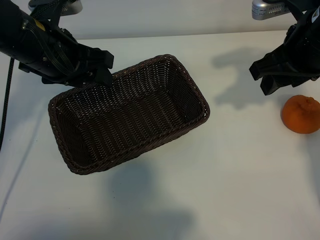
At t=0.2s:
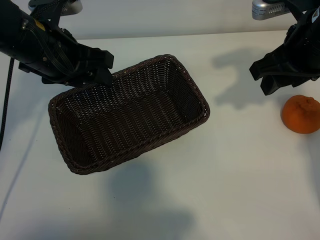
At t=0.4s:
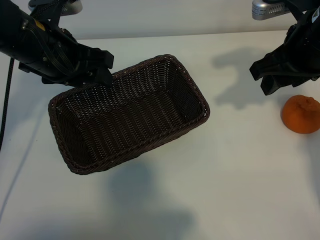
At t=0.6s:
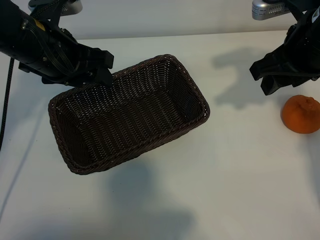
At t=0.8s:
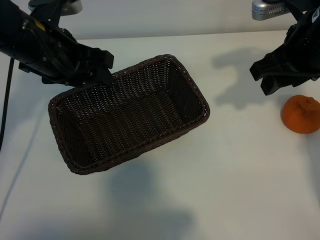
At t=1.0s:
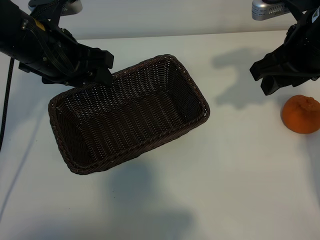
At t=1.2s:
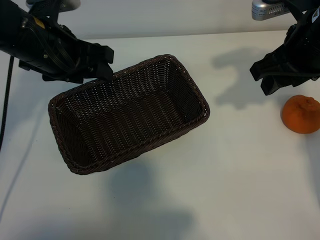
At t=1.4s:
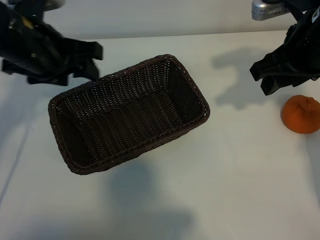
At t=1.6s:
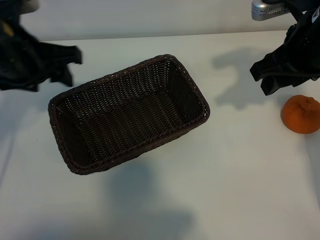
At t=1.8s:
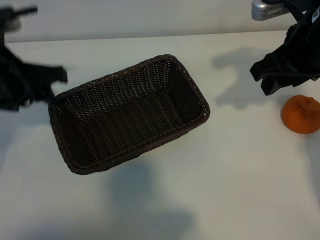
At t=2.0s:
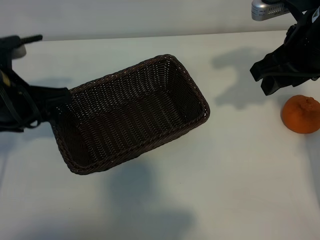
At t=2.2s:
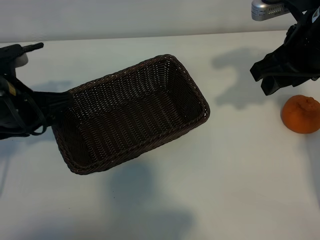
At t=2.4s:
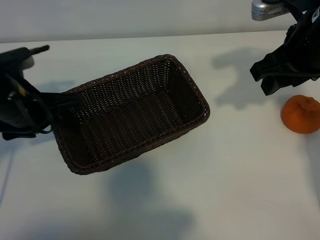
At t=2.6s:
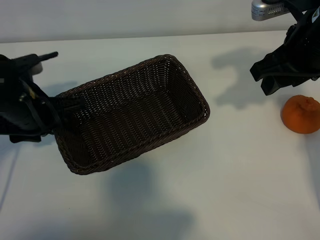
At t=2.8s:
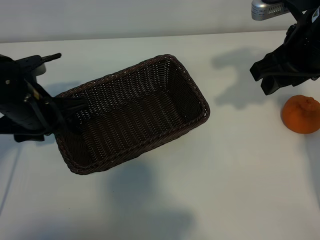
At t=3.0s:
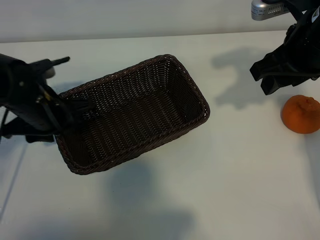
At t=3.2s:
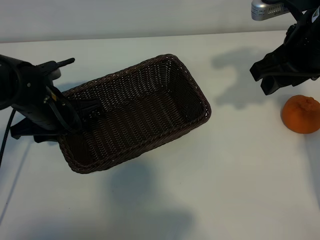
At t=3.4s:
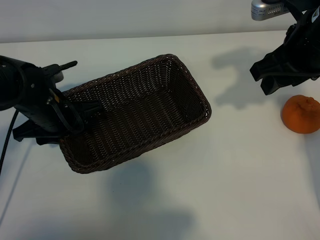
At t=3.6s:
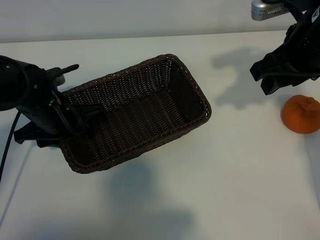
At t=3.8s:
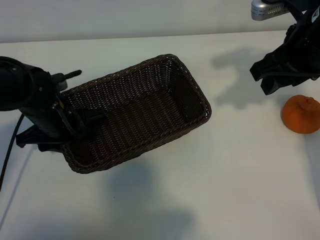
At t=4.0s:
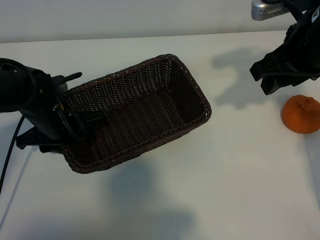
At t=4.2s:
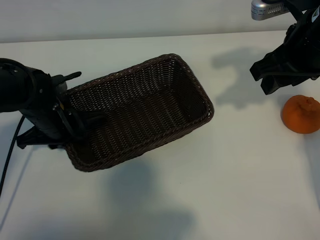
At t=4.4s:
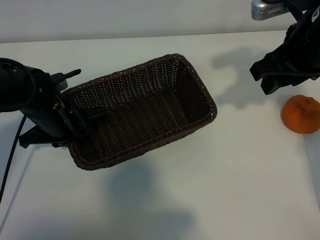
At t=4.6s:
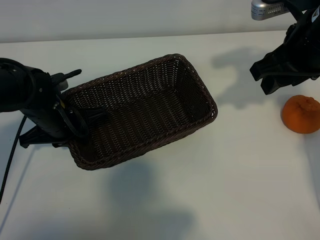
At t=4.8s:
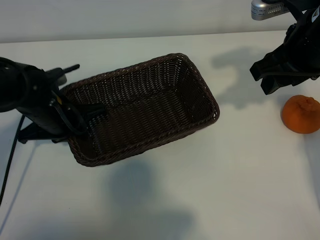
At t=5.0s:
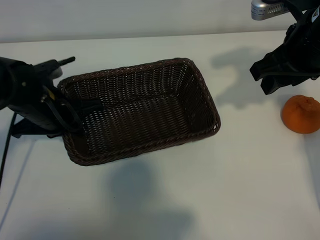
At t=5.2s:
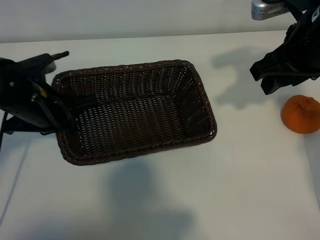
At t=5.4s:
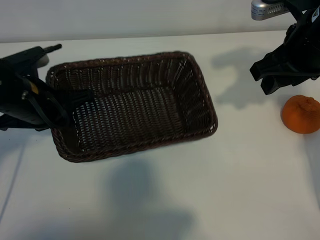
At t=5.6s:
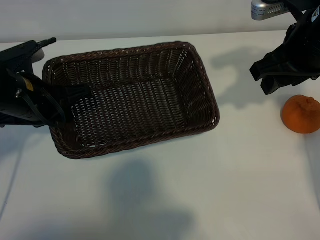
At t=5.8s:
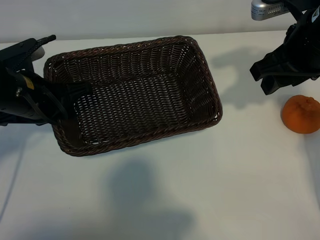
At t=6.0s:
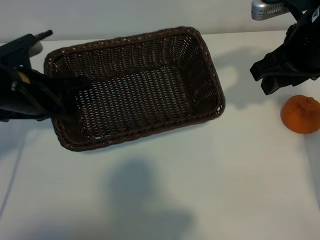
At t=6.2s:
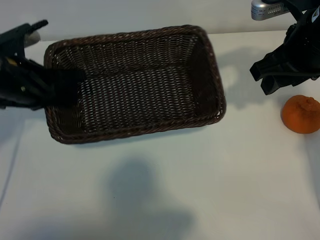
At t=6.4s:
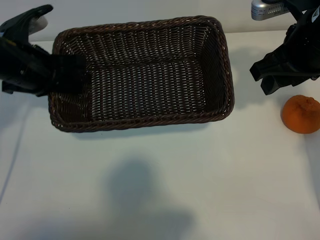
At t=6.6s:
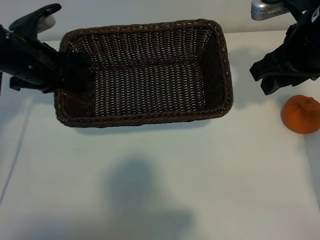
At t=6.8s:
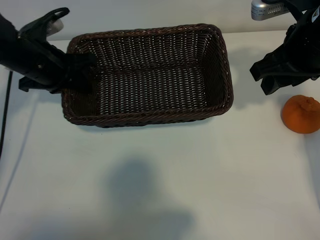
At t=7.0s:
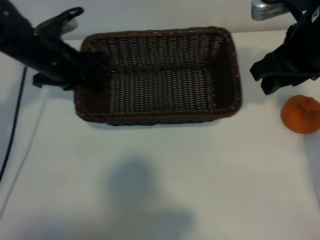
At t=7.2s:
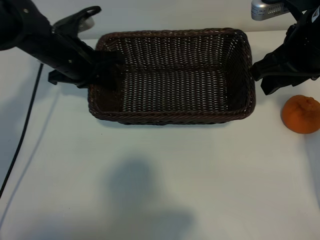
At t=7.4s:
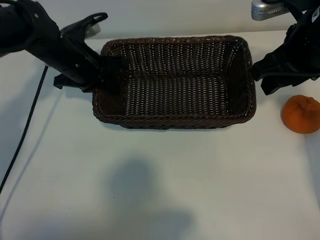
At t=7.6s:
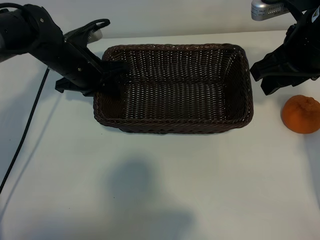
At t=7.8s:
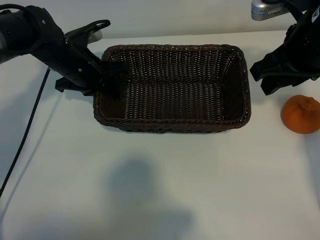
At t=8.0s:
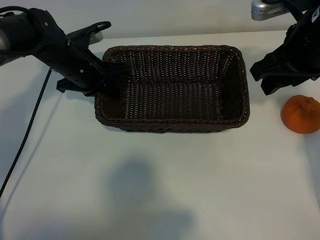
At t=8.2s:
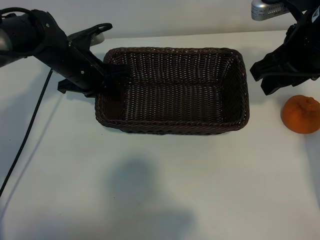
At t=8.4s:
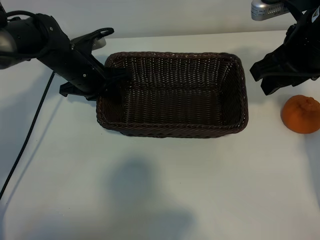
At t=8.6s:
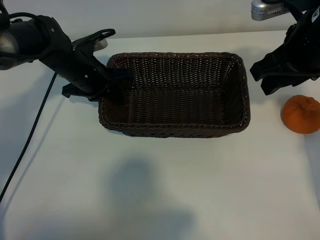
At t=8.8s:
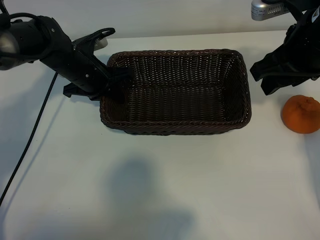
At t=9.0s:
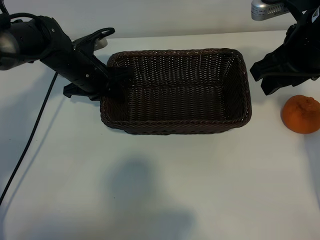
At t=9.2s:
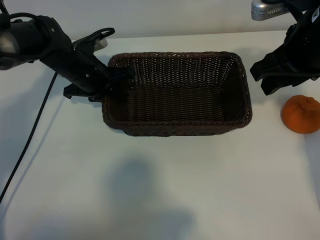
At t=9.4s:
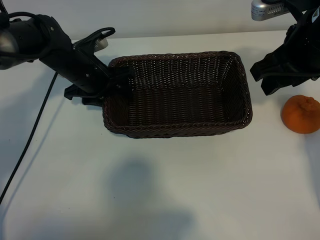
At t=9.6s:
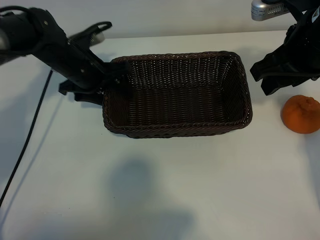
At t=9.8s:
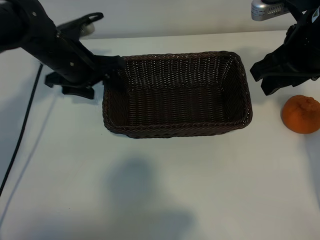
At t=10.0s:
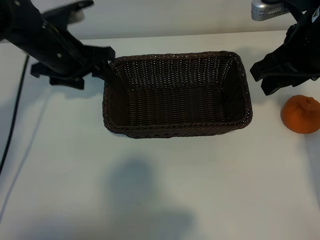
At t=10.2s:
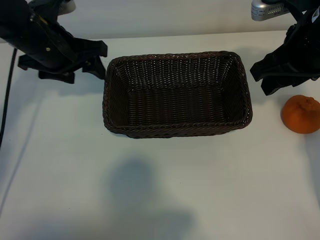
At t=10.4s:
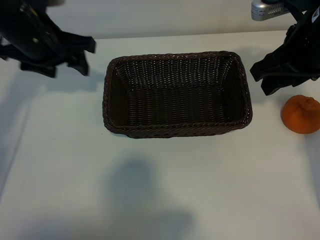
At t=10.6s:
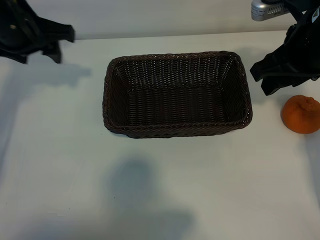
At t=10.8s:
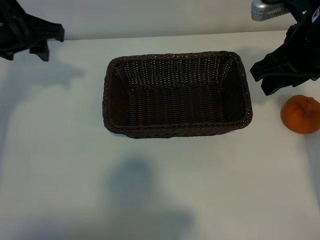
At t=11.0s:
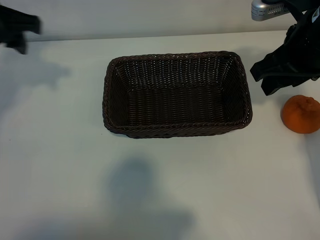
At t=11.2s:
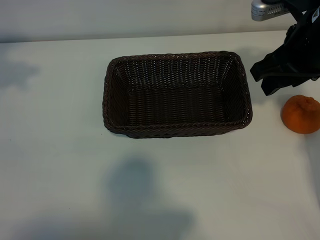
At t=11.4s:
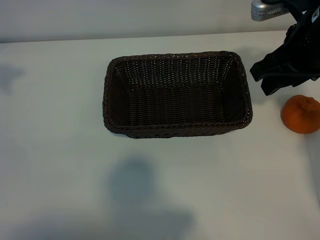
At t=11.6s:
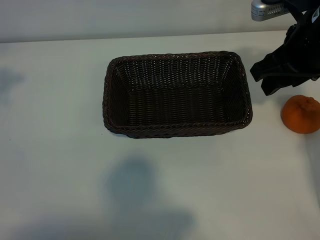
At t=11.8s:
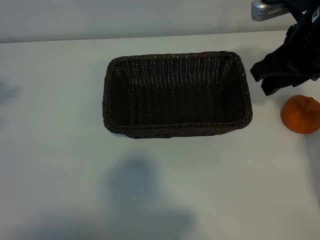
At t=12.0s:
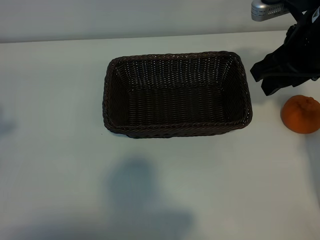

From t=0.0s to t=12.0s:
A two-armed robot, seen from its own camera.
Task of the whole recording: pick up the orange and put it into the basket.
Step, from t=1.2s to t=4.2s: Grasp the basket with left gripper.
Step, from t=4.4s to t=9.4s: Place the basket in the center of view with left gripper.

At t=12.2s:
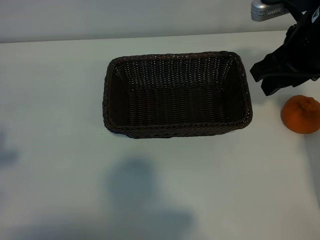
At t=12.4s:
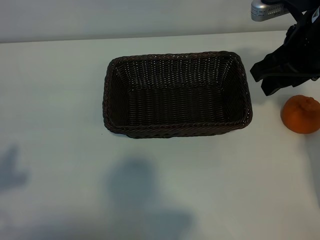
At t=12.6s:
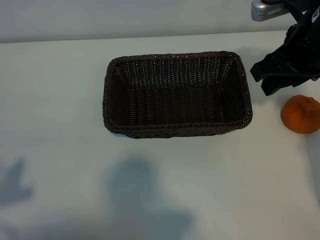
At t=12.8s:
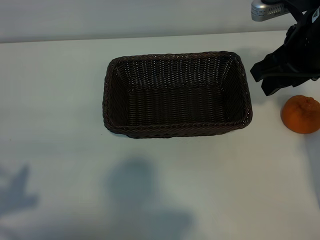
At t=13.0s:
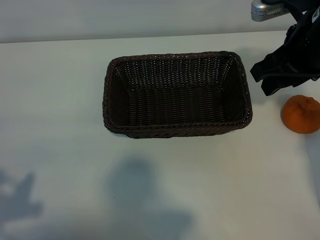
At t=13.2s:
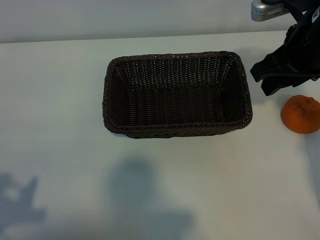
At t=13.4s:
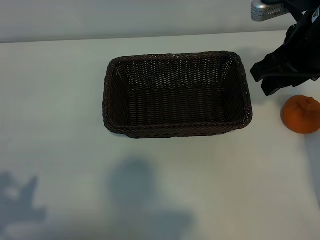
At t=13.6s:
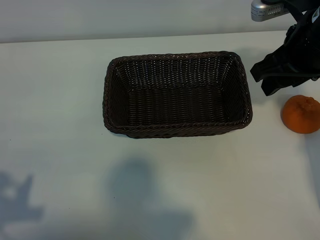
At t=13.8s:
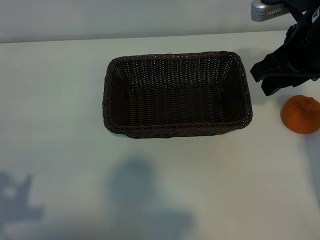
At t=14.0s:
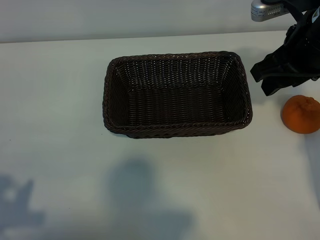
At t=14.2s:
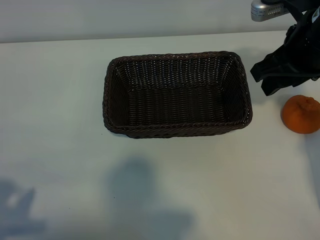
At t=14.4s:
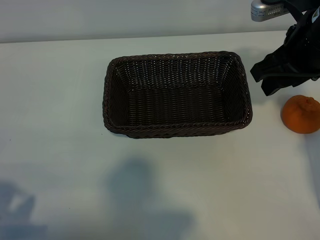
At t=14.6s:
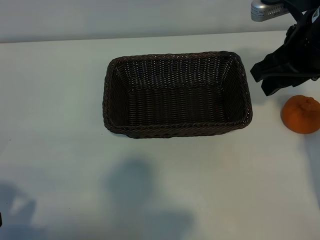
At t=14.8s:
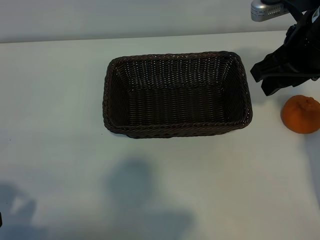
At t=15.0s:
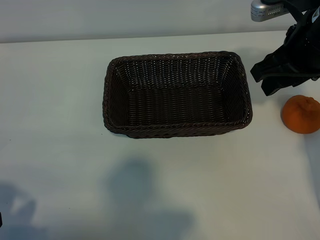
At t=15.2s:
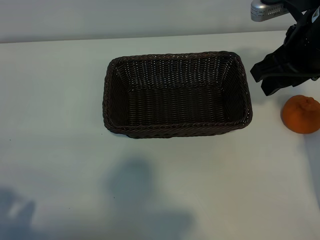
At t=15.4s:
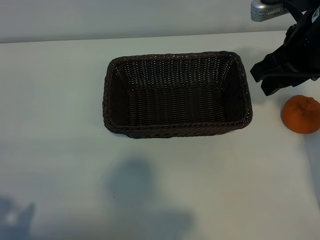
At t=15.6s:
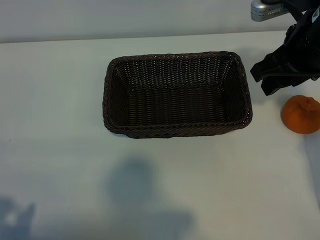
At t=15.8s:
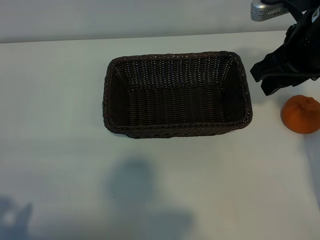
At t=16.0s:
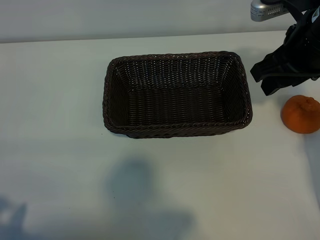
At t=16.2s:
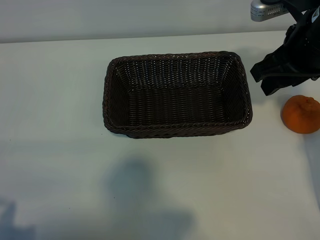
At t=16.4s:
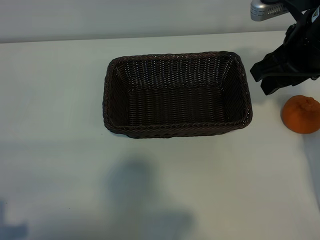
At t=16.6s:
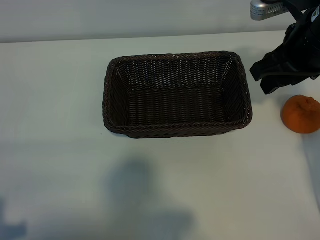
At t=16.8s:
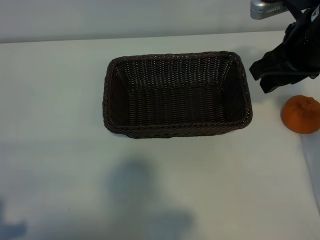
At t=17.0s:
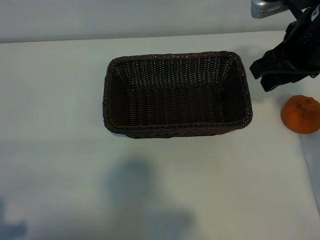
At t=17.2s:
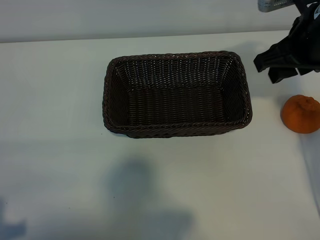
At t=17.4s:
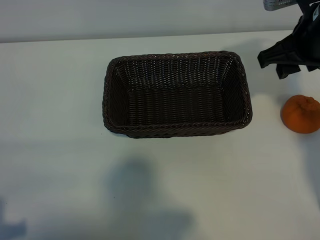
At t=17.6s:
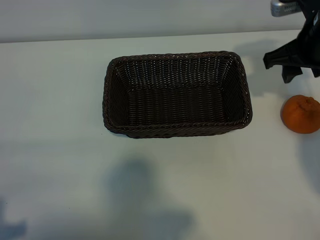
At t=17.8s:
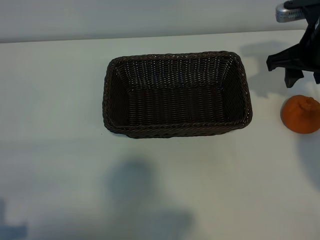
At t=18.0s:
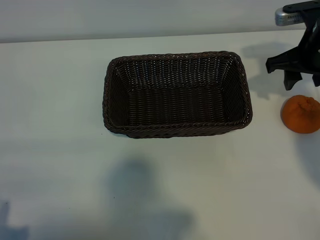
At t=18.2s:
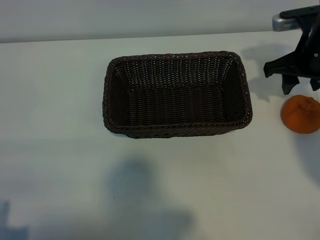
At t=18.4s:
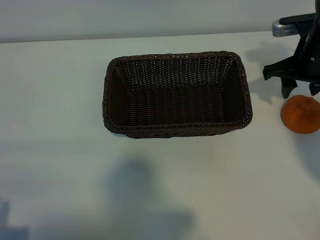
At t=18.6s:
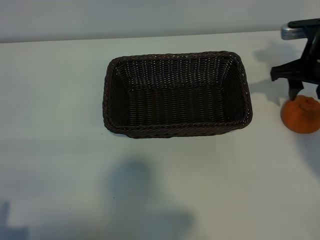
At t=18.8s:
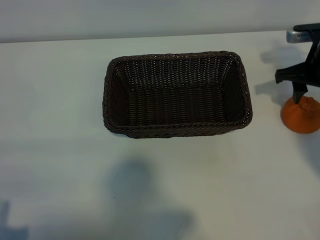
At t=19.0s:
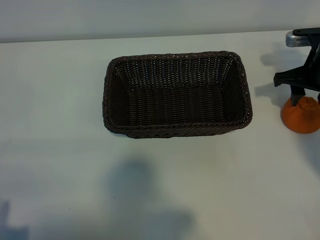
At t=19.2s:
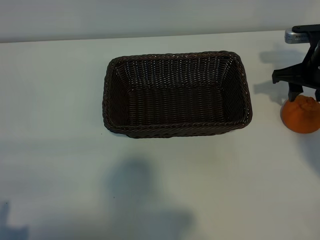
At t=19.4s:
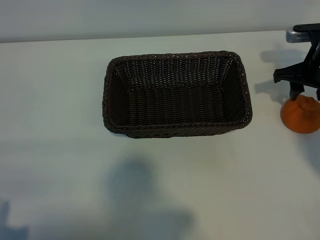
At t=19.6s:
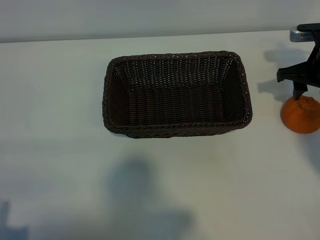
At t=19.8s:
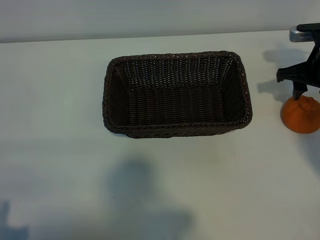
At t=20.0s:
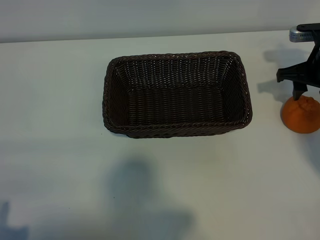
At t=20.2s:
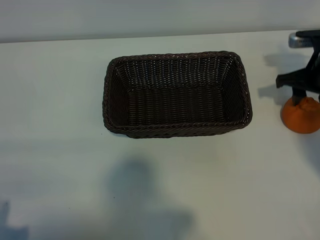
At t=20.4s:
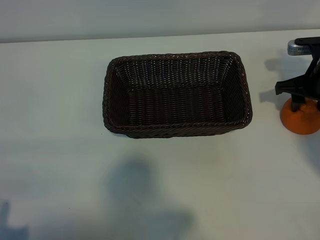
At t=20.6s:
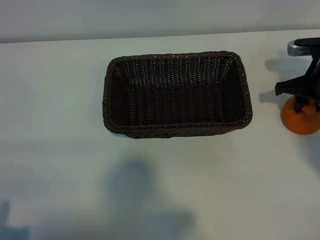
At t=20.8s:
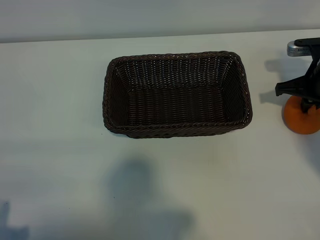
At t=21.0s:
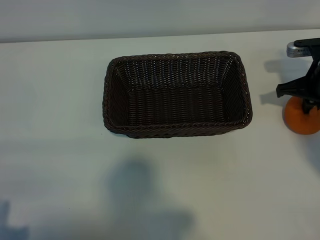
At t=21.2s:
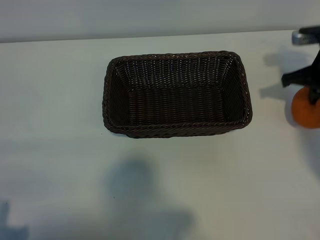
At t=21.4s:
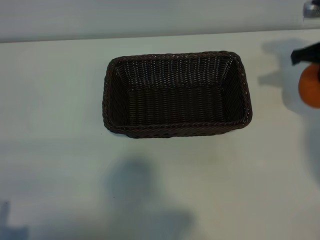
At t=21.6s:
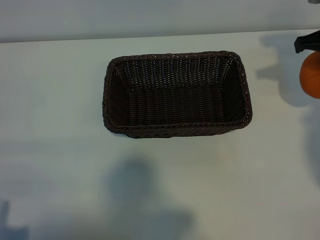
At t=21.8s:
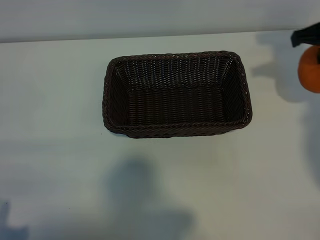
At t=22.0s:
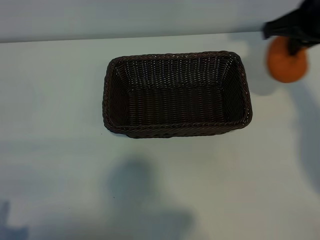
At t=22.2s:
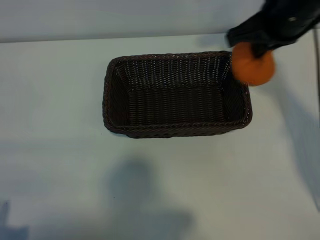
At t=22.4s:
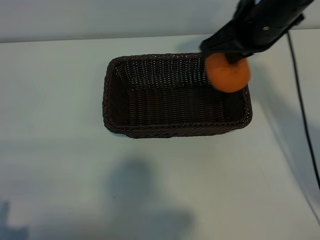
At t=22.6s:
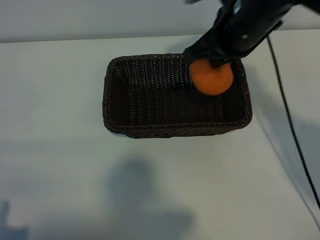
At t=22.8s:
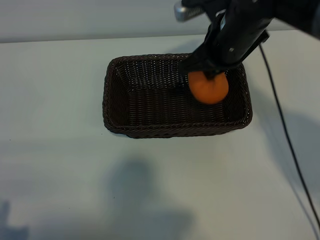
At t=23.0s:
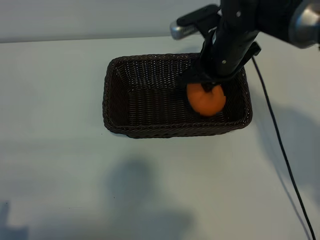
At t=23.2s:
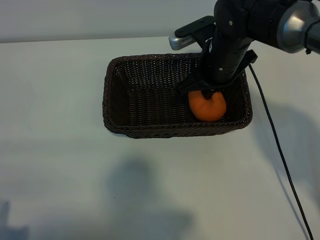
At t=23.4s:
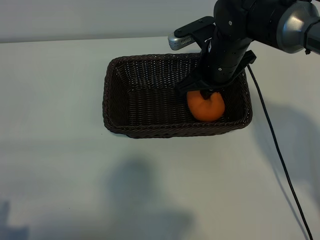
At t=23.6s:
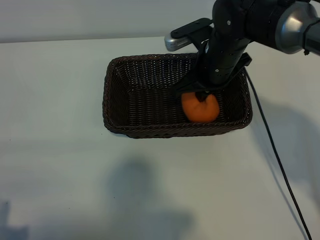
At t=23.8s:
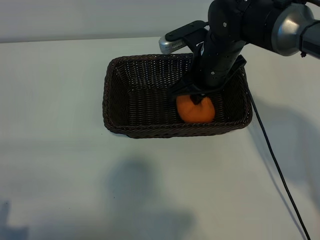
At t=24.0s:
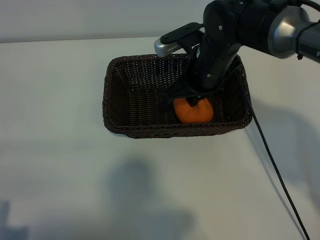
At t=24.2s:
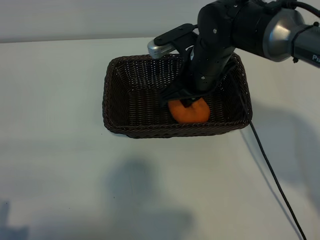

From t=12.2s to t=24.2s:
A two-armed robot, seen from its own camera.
Task of the whole recording: pick up the orange and put it into the basket.
Step, from t=12.2s to t=20.8s: Grasp the orange with right gripper.
